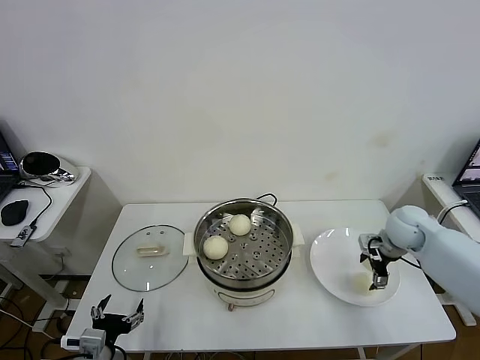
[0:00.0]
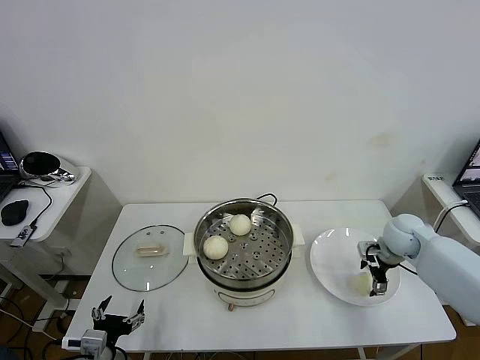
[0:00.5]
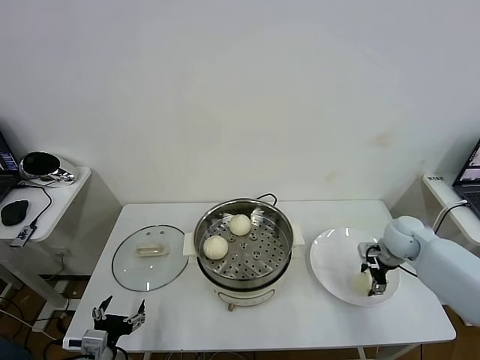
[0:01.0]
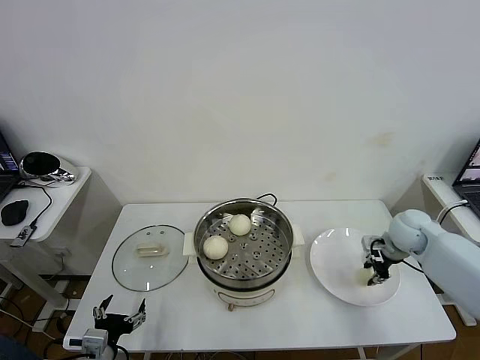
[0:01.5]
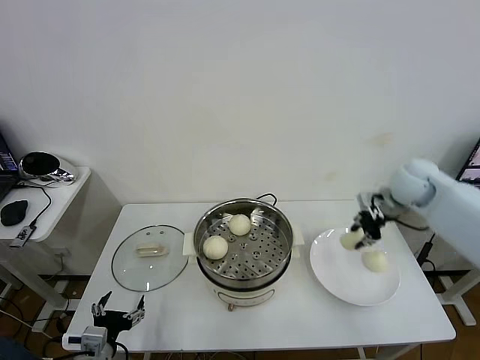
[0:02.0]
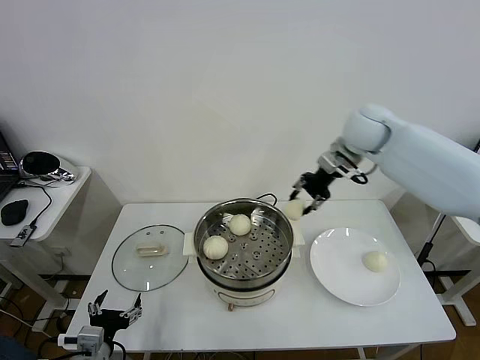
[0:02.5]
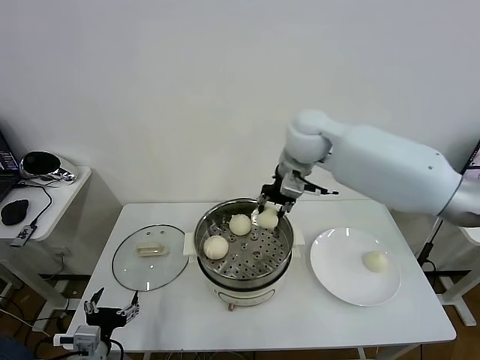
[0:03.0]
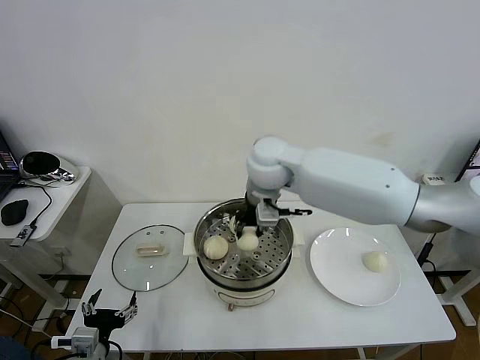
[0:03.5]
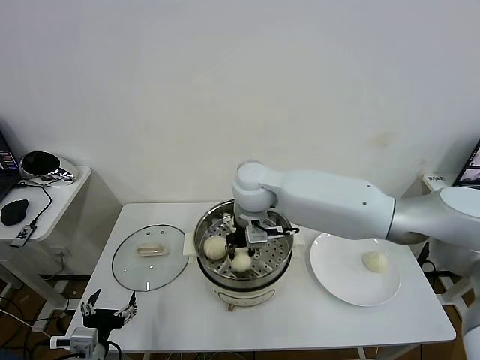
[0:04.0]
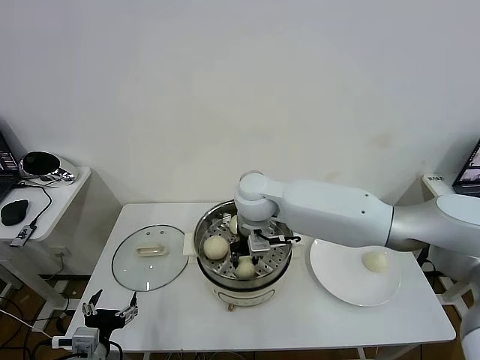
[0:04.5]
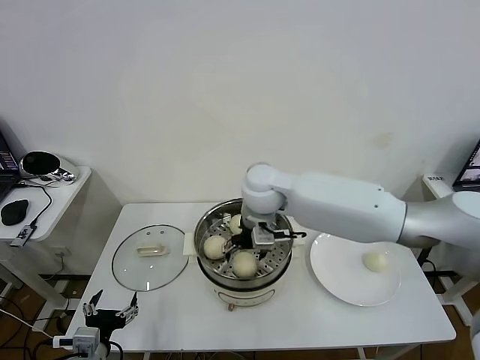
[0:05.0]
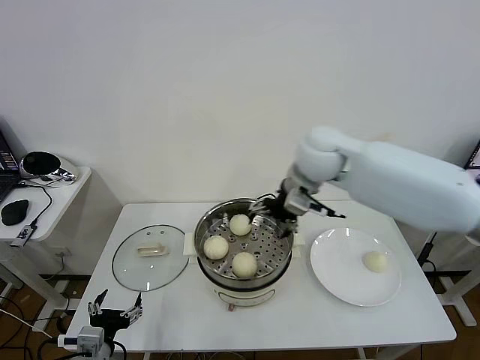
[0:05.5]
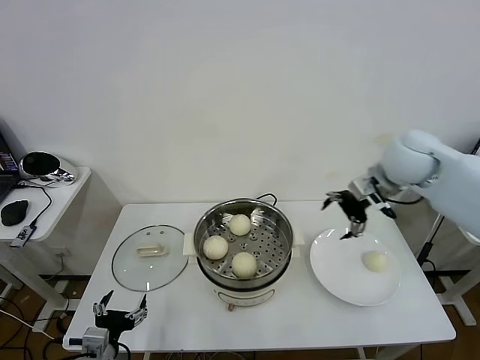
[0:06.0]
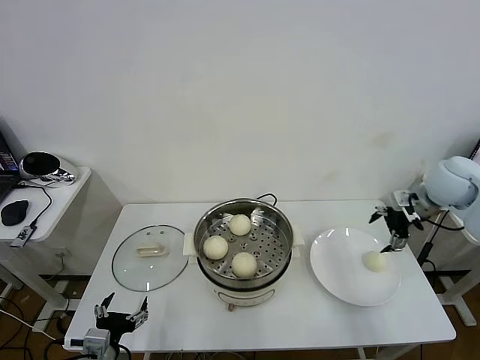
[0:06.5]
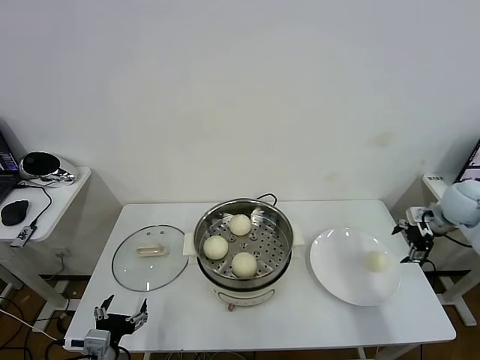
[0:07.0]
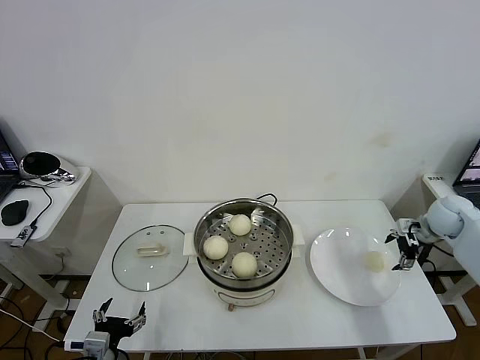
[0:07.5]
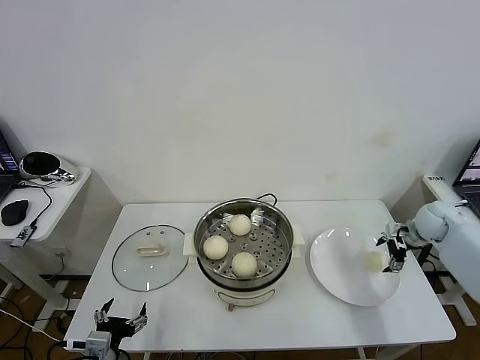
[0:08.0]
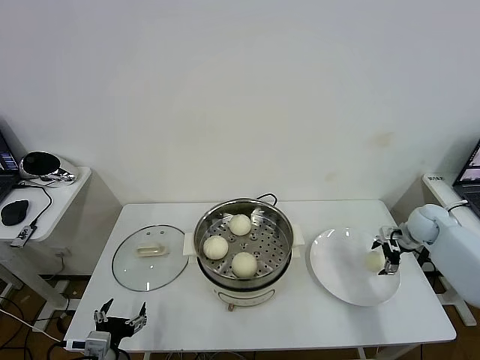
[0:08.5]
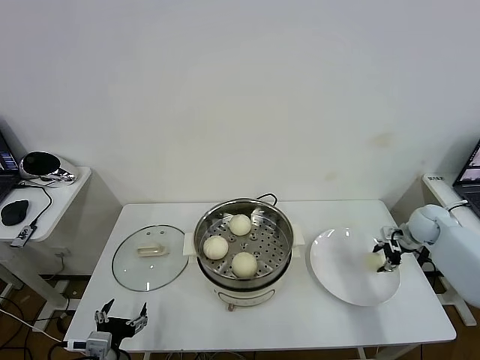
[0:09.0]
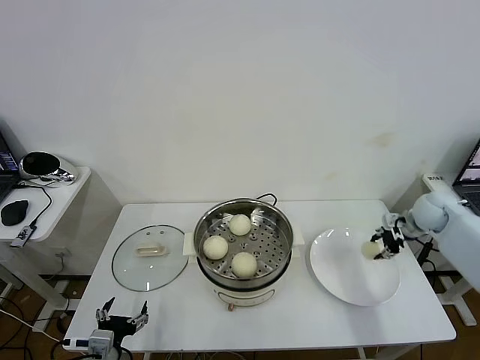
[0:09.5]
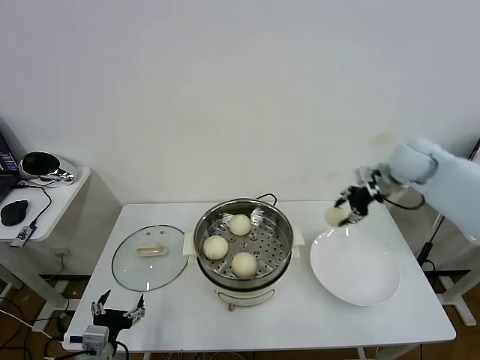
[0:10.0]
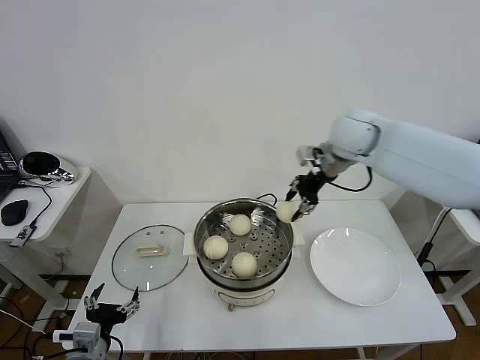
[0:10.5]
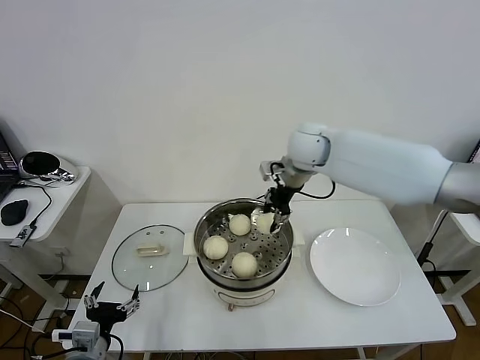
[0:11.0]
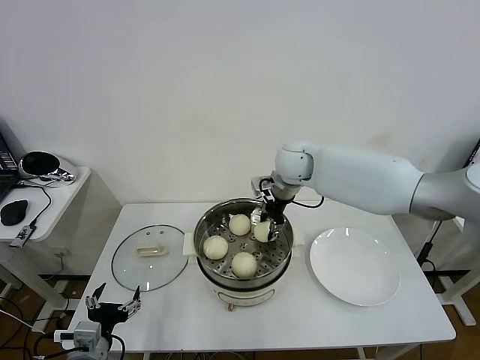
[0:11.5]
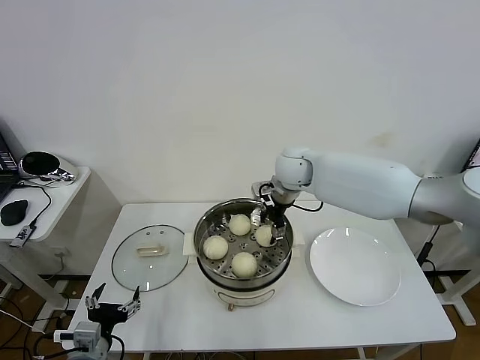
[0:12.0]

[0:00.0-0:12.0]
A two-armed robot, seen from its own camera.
Task of the whole recording: take steamed baozi put them in steamer then cover it.
Step, 0:01.5 to 0:05.0: Place the baozi on the steamer with right gripper.
Step, 0:05.5 to 0:09.0: Grasp the baozi in the plate with right gripper.
0:00.0 to 0:02.0: The right gripper goes some 15 cm upward, and closes its fingers.
0:02.0 to 0:04.0: The right gripper moves to the left, approximately 35 cm.
0:04.0 to 0:06.0: The right gripper travels to the right by roughly 30 cm, and opens its fingers.
0:06.0 to 0:08.0: The right gripper goes roughly 25 cm downward and to the right.
0:08.0 to 0:10.0: The right gripper goes some 20 cm upward and to the left, and closes.
0:10.0 to 0:12.0: The right gripper is displaced to the left by approximately 25 cm, and opens its fingers.

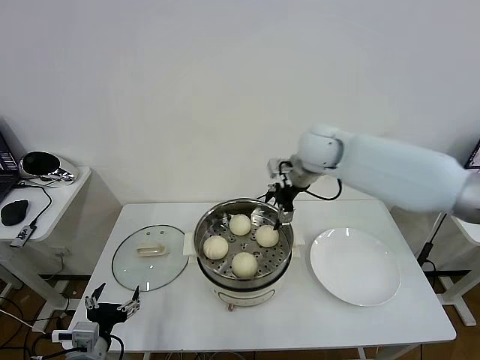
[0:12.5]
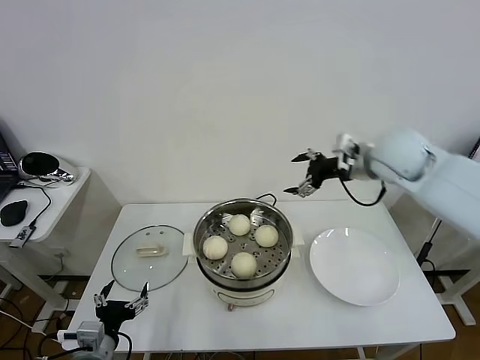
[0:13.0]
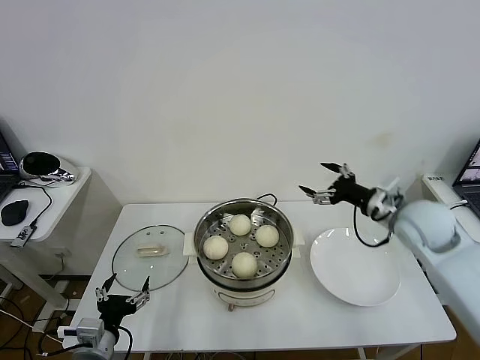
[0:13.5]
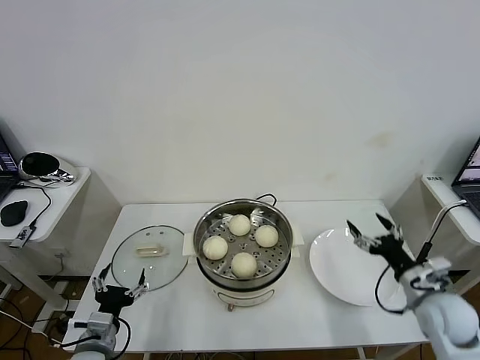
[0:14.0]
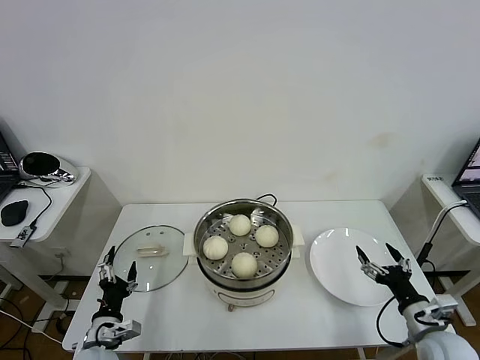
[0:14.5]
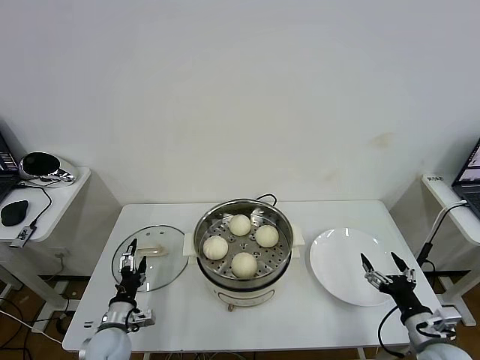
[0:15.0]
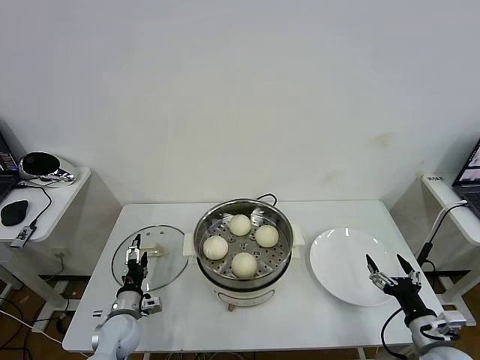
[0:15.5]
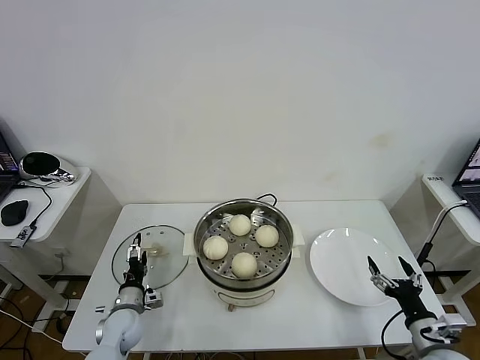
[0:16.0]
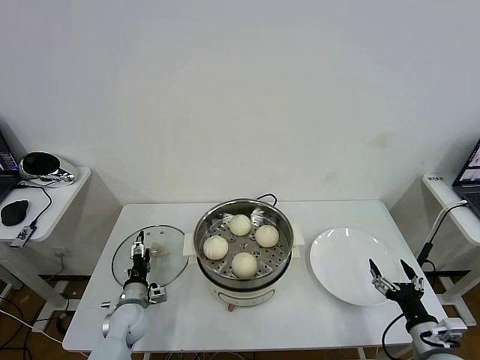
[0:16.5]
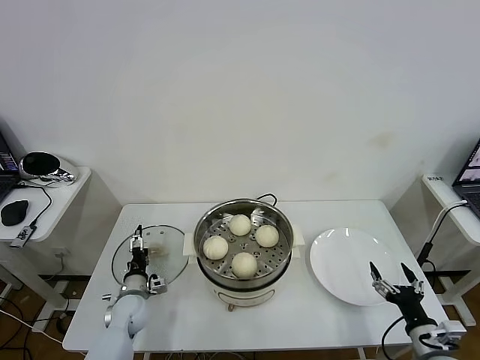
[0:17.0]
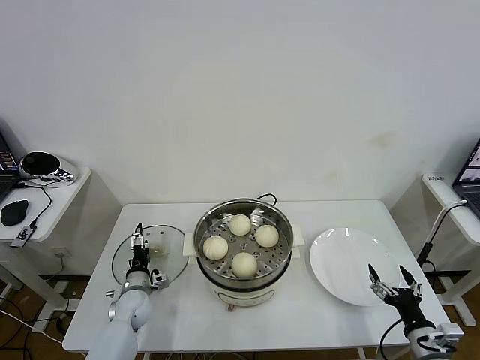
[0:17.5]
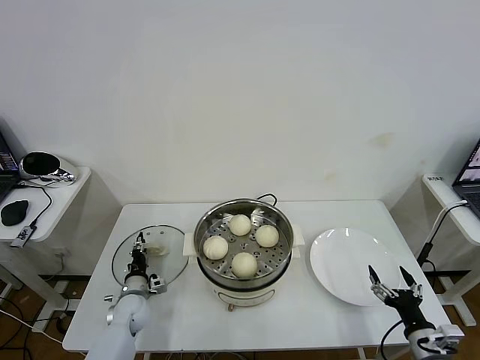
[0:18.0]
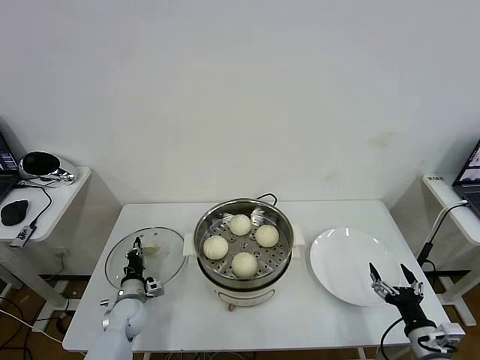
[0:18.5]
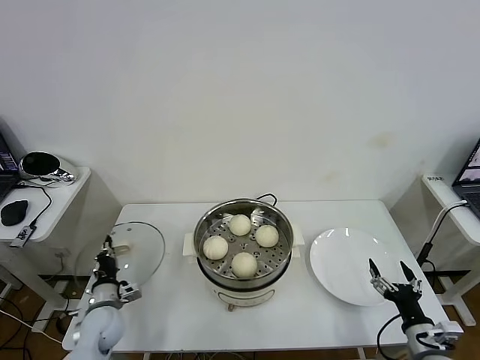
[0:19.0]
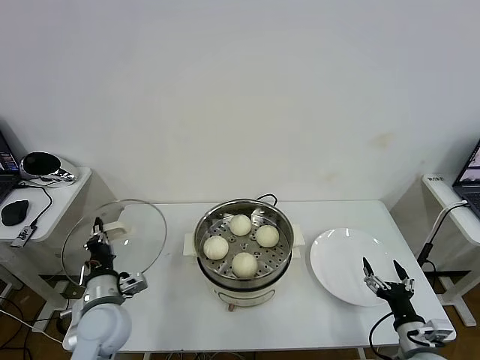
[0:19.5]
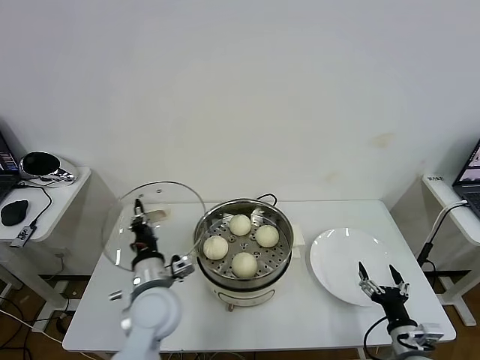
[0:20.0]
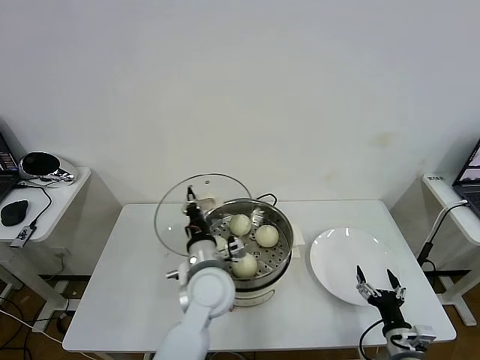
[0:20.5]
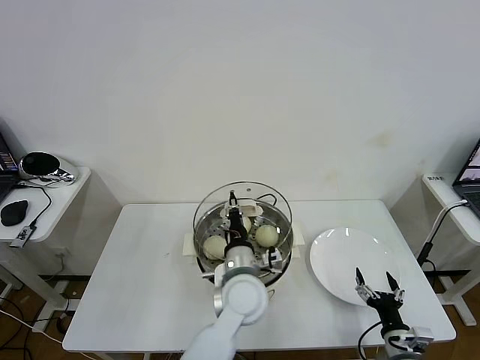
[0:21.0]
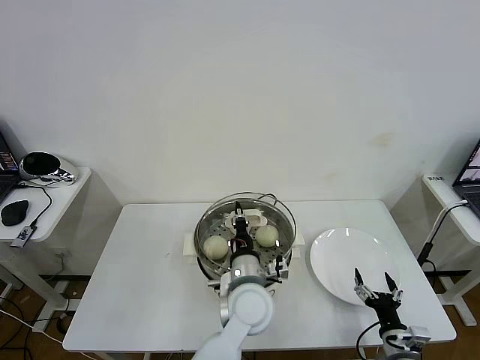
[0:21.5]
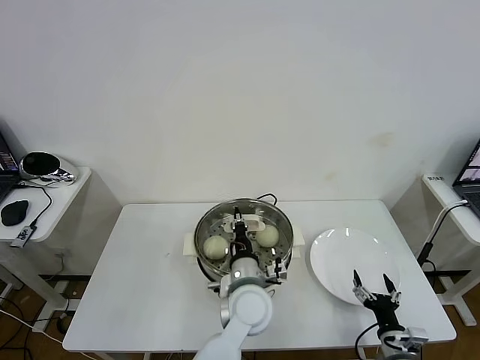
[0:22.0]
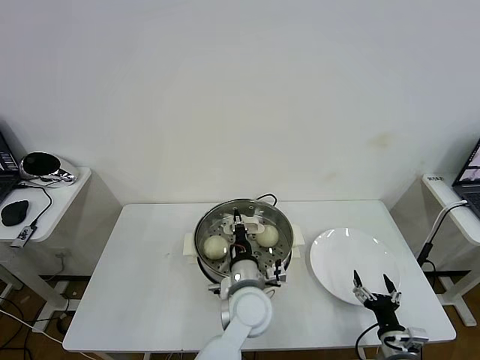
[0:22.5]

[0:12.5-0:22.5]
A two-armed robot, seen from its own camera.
Task of the whole recording: take steamed baozi put them in steamer then cover it.
Step, 0:12.5 to 0:18.0: Grasp the pot lid with left gripper.
0:12.5 to 0:14.5: The left gripper goes some 5 cm downward; the right gripper moves backward, downward and to the right, some 50 cm.
0:14.5 to 0:16.5: The left gripper heads forward and downward, covering some 15 cm.
0:16.5 to 0:18.5: The left gripper closes its fingers.
0:18.5 to 0:20.5: The left gripper goes approximately 35 cm to the right and upward. The right gripper changes place by about 5 cm.
0:20.5 to 0:22.5: The left gripper is displaced to the right by approximately 10 cm.

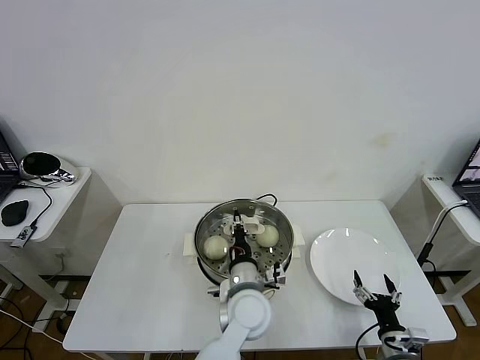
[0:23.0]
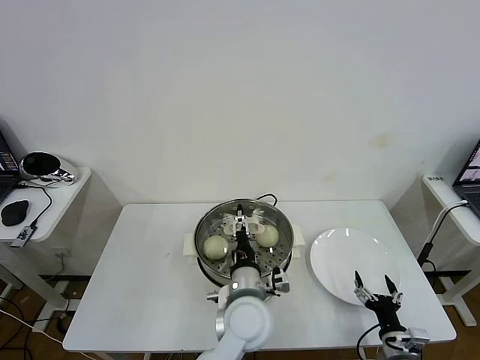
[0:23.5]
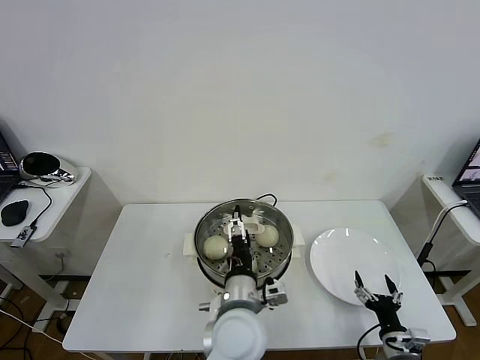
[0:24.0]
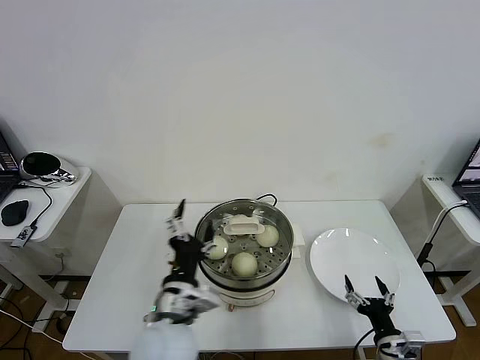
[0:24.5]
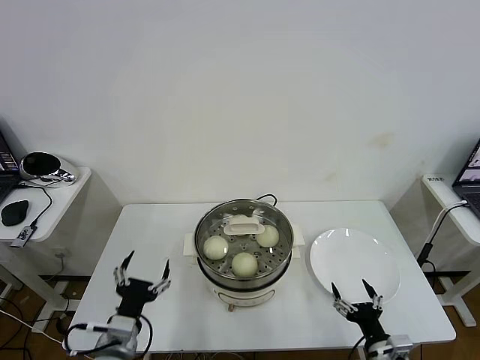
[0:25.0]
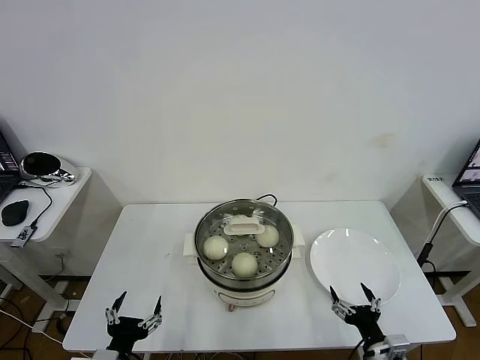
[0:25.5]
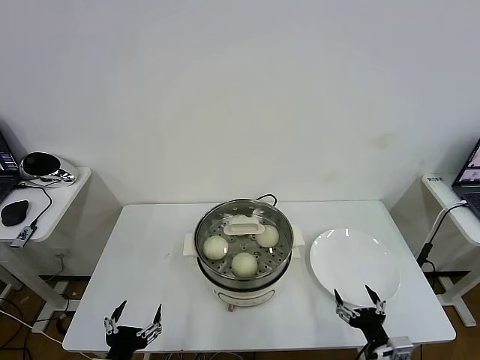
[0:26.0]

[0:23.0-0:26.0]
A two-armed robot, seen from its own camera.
Task of the whole recording: take steamed baozi put them in steamer then cover it.
0:23.0 to 0:24.5: The left gripper moves to the left, backward and upward, approximately 15 cm, and opens up.
0:24.5 to 0:26.0: The left gripper goes roughly 20 cm to the left, backward and downward.
